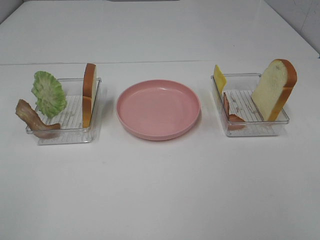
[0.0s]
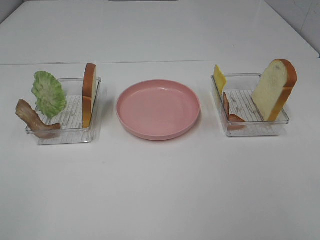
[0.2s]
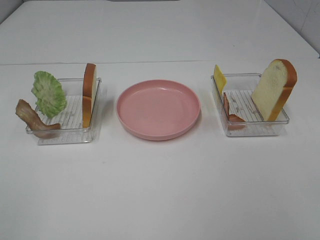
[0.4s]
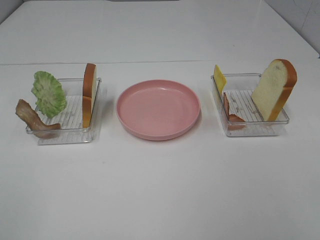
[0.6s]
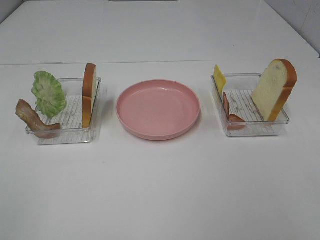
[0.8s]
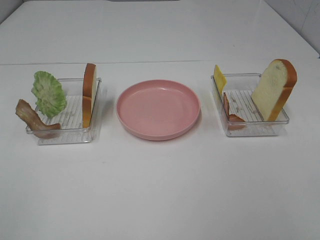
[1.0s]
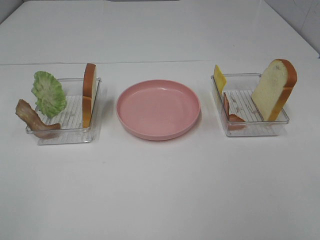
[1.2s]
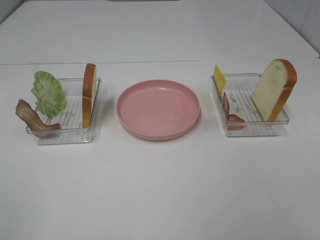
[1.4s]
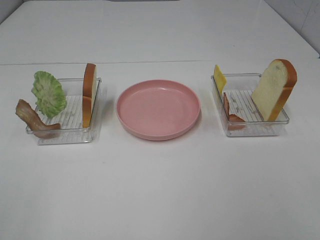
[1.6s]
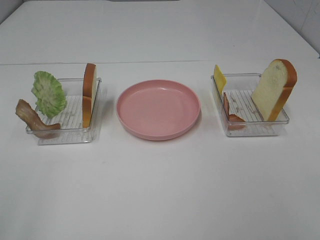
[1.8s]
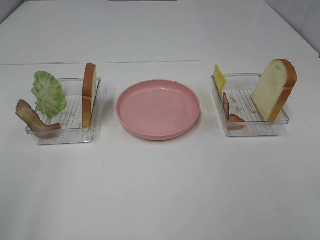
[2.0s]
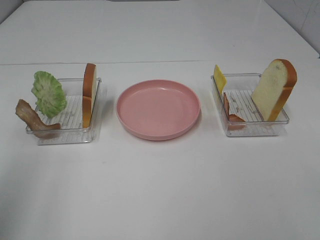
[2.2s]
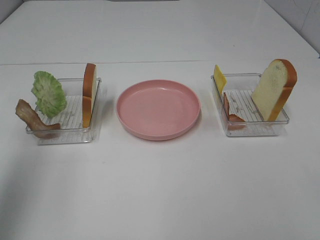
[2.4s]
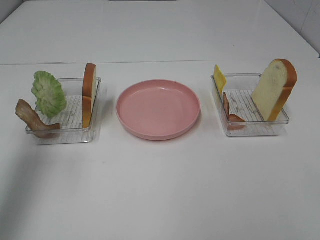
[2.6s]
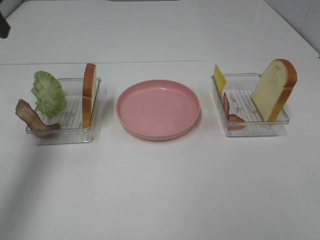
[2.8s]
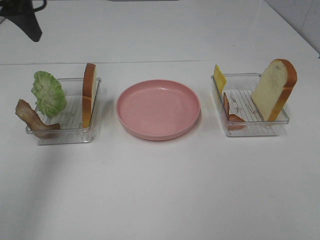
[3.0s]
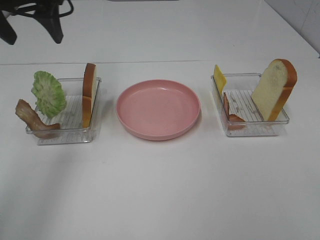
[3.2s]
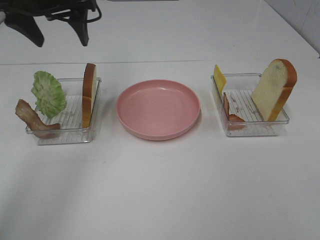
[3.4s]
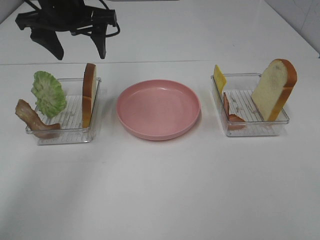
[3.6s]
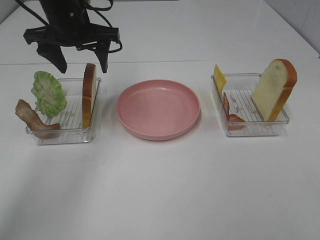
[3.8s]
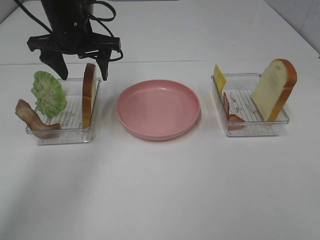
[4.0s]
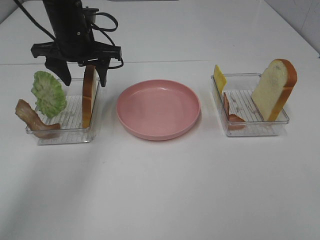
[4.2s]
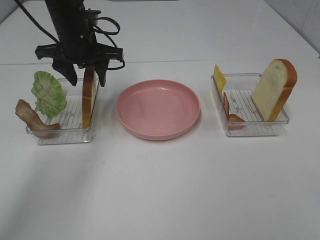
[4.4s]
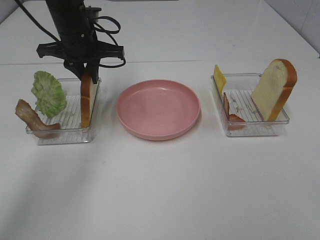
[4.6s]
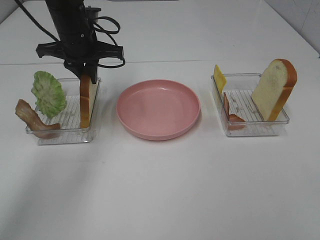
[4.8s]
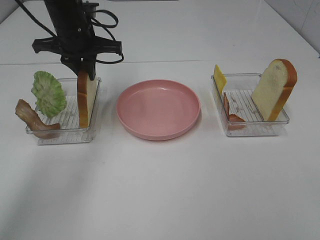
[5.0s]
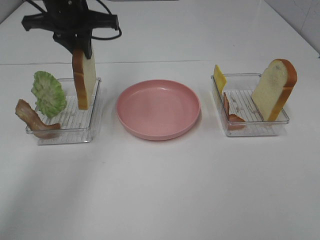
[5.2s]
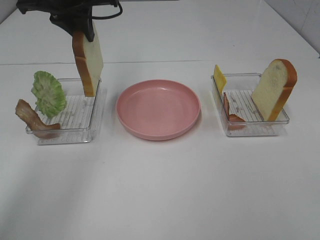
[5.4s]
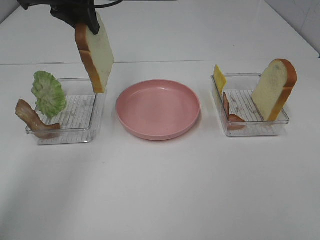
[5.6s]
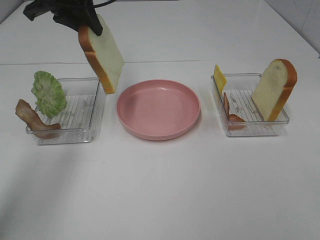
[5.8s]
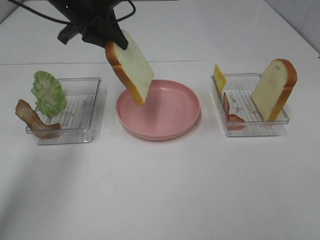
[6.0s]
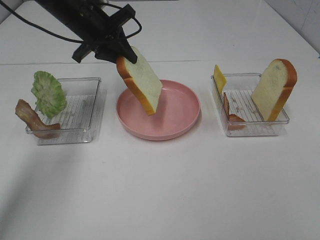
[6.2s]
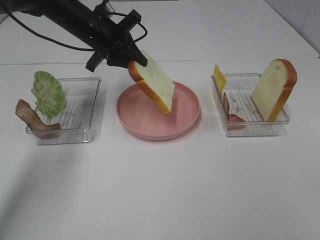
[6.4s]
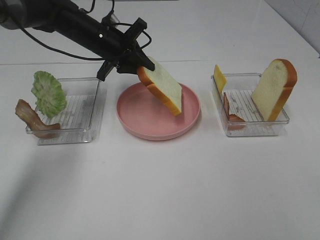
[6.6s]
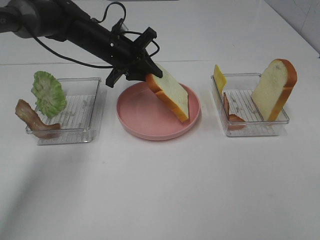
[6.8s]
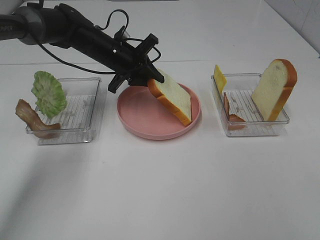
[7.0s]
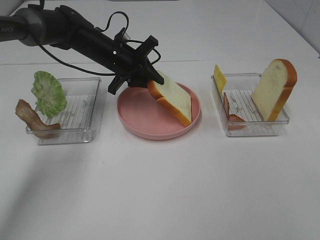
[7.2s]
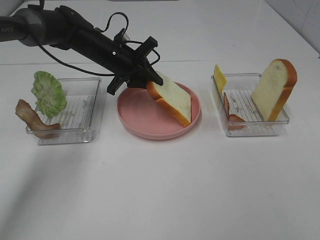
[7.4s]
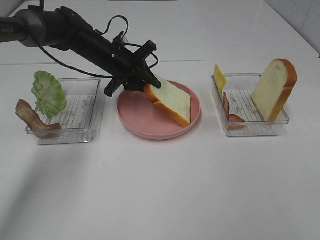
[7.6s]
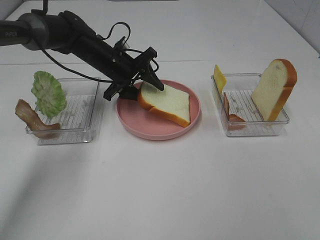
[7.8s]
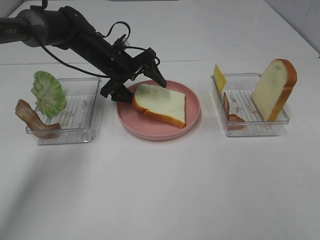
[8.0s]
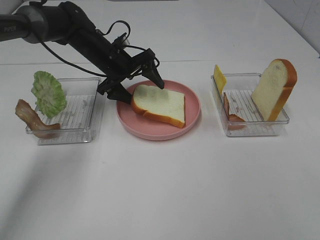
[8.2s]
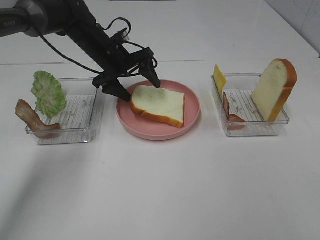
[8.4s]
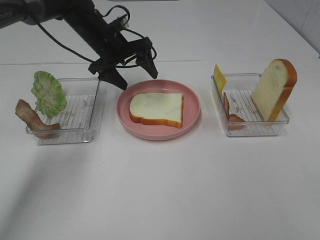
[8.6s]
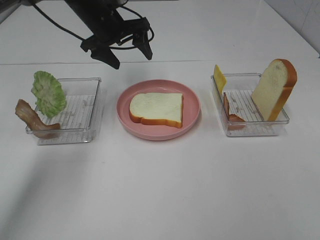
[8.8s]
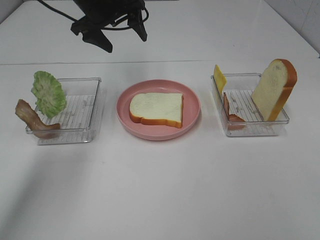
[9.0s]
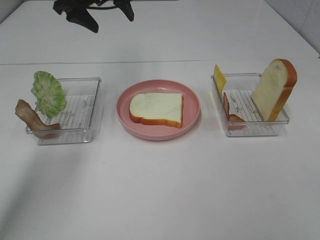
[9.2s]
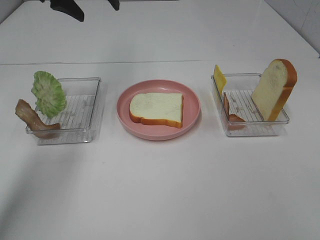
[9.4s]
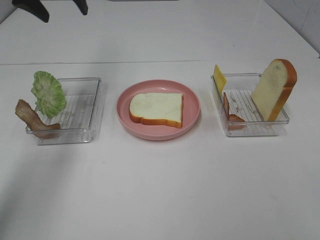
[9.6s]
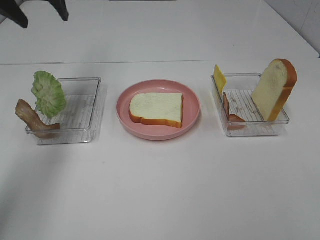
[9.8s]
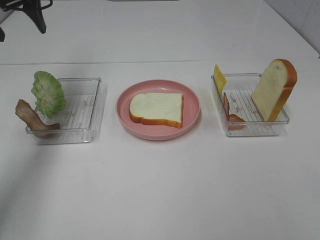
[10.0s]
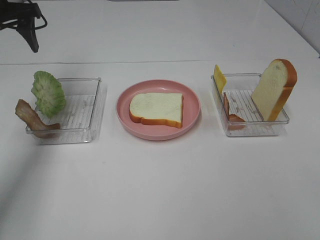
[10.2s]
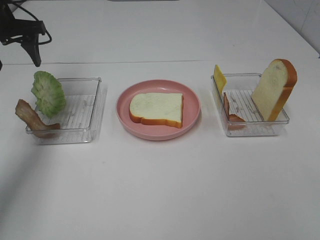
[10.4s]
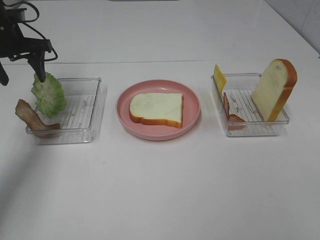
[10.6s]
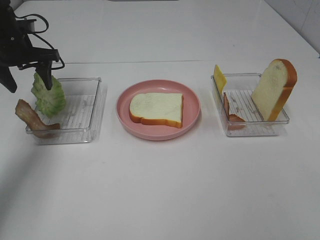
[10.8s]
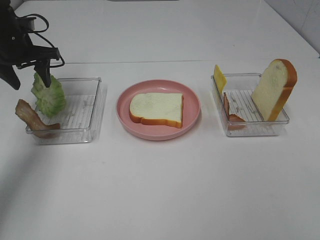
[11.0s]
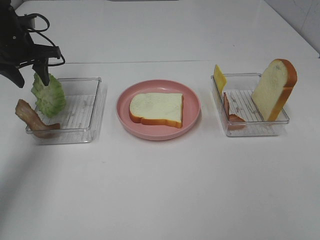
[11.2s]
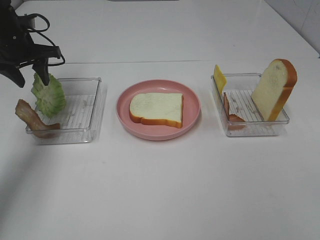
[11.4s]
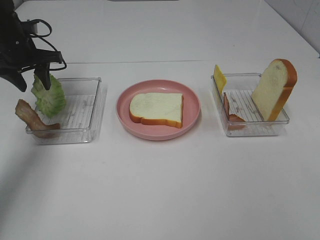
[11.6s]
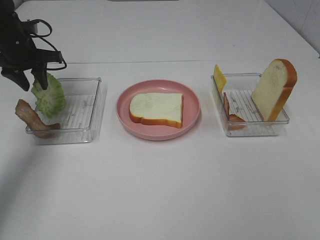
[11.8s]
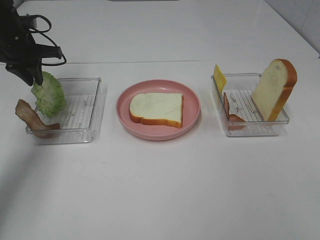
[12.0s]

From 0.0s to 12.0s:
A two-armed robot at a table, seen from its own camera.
Task of the whole recording: Make sandwiches.
Step, from 0.0s to 4.6s: Left hand:grab the bread slice.
Step, from 4.8s to 8.6s: Left hand:place the bread slice on the plate.
From 1.6s to 3.0s: The left gripper is displaced forward by some 35 cm.
From 3.0s to 4.4s: The left gripper moves downward, to the right and forward, roughly 20 cm.
From 4.4s to 6.0s: The left gripper heads upward, covering approximately 5 cm, and closes its fingers.
From 6.0s to 7.6s: The left gripper shifts about 15 cm downward.
From 7.6s to 9.0s: The left gripper travels upward by some 15 cm, and opens up.
From 9.0s to 10.4s: The left gripper heads to the left, covering approximately 15 cm.
From 10.4s to 12.0s: The left gripper moves downward, roughly 5 cm, and closes its fingers.

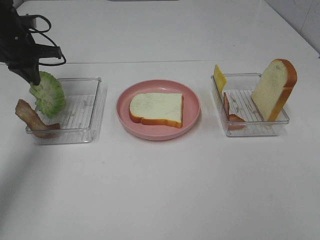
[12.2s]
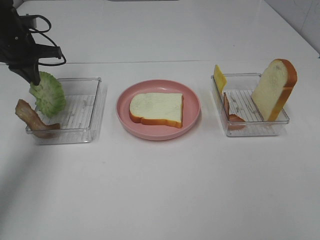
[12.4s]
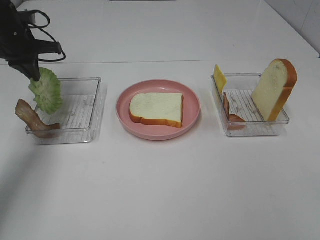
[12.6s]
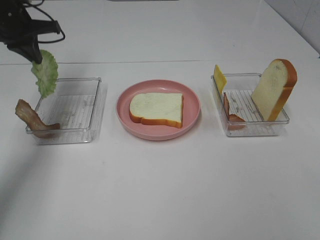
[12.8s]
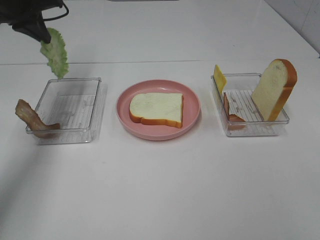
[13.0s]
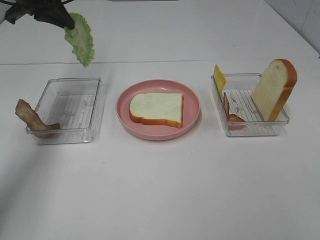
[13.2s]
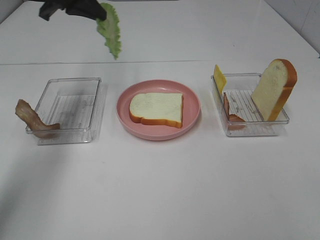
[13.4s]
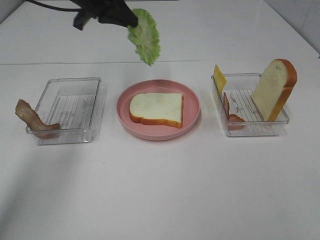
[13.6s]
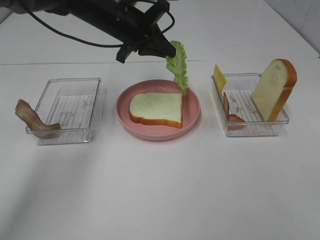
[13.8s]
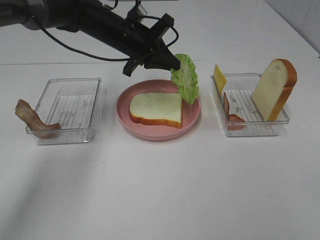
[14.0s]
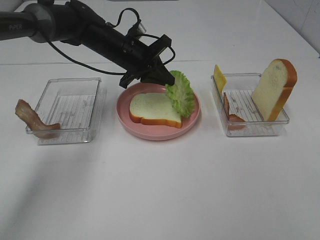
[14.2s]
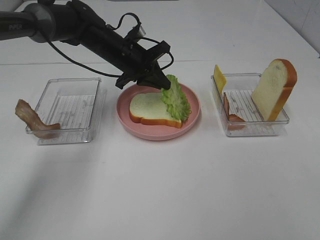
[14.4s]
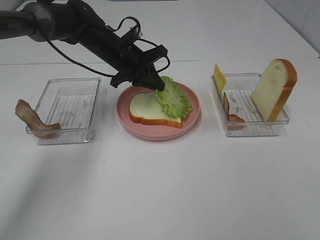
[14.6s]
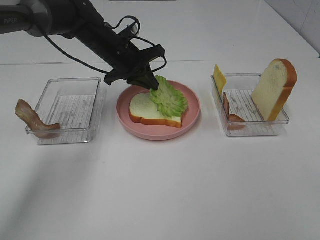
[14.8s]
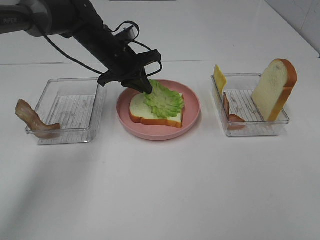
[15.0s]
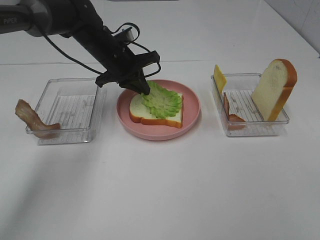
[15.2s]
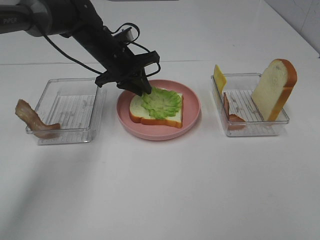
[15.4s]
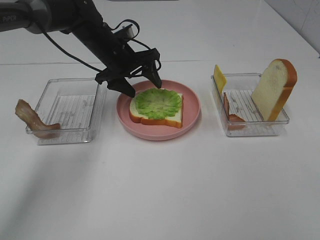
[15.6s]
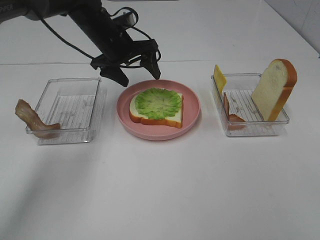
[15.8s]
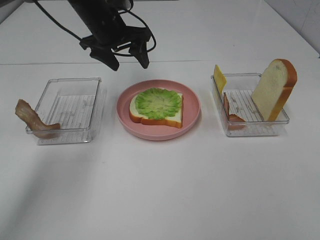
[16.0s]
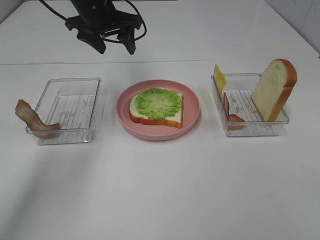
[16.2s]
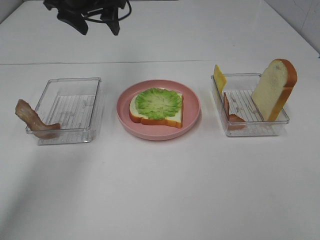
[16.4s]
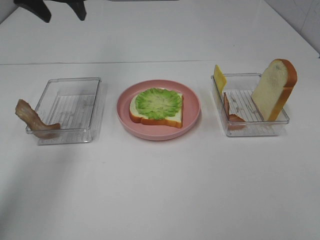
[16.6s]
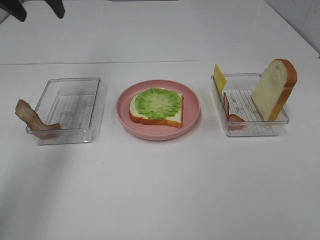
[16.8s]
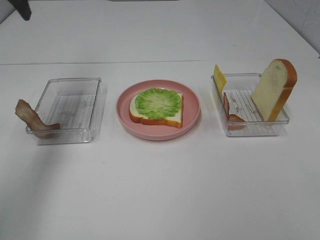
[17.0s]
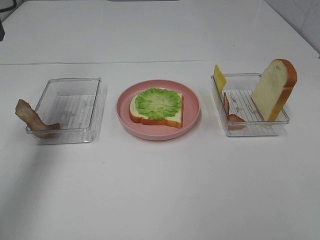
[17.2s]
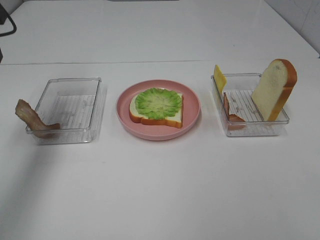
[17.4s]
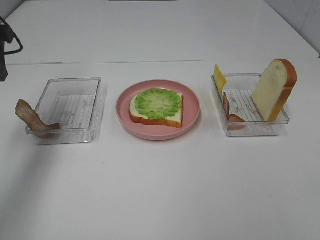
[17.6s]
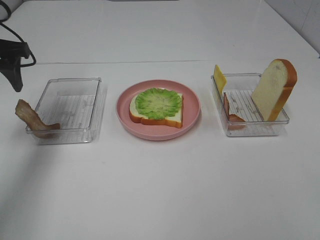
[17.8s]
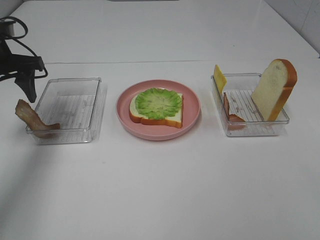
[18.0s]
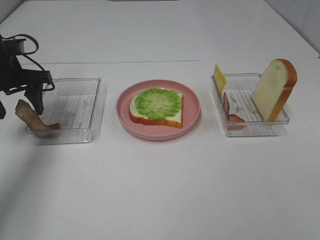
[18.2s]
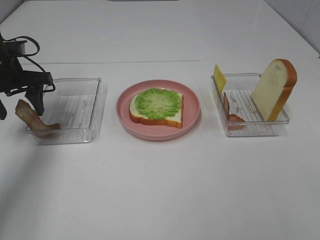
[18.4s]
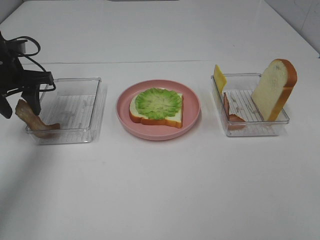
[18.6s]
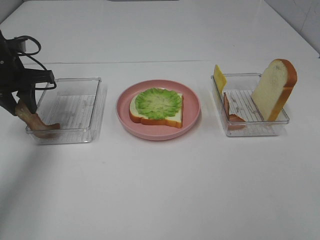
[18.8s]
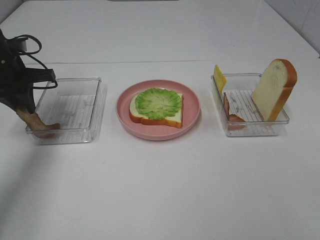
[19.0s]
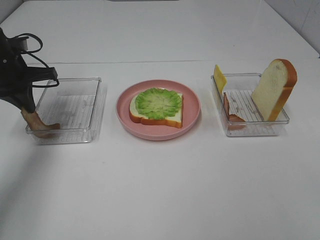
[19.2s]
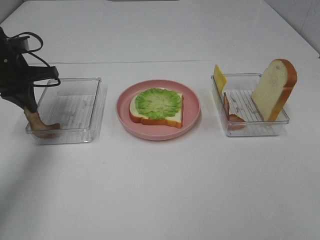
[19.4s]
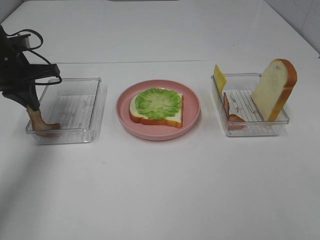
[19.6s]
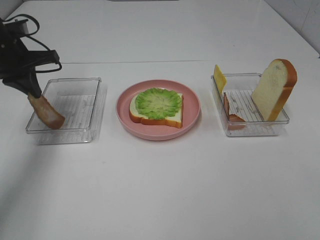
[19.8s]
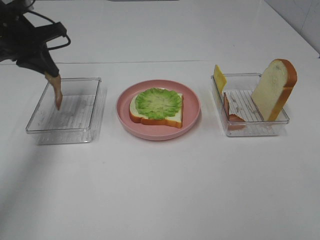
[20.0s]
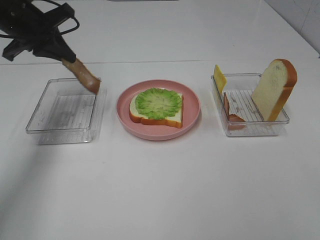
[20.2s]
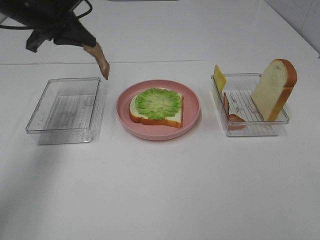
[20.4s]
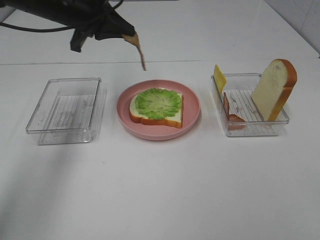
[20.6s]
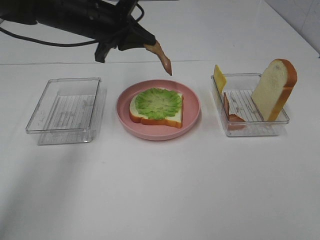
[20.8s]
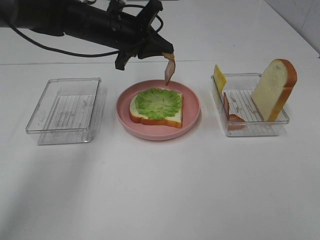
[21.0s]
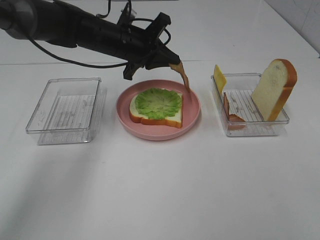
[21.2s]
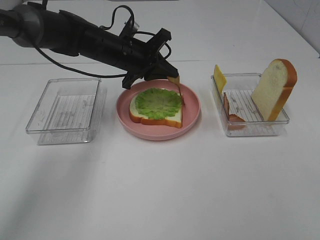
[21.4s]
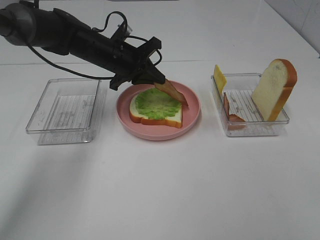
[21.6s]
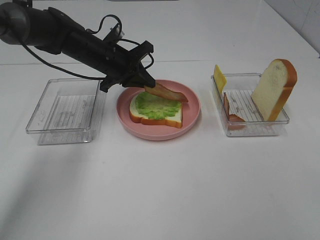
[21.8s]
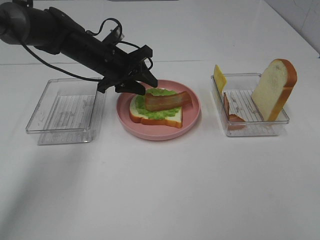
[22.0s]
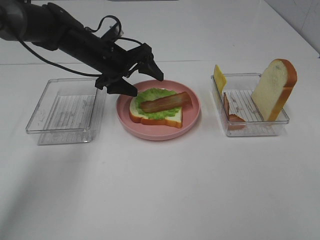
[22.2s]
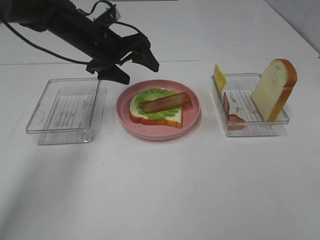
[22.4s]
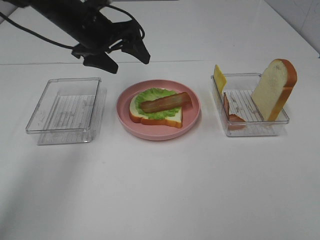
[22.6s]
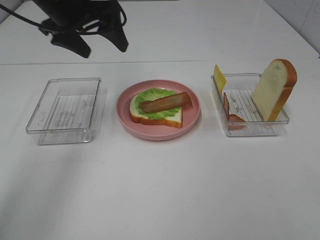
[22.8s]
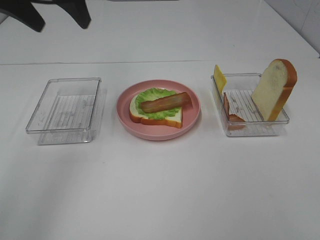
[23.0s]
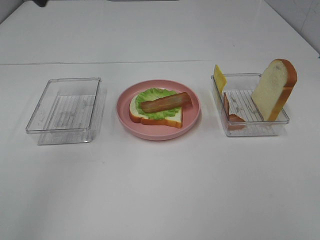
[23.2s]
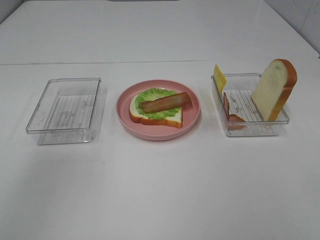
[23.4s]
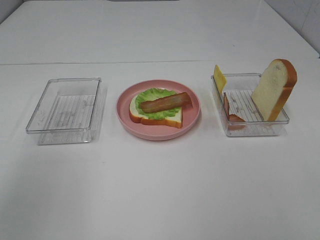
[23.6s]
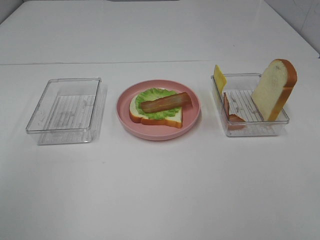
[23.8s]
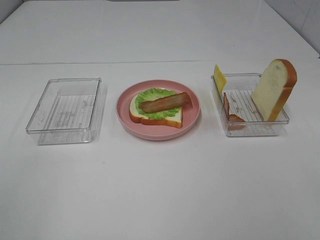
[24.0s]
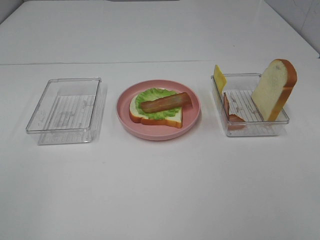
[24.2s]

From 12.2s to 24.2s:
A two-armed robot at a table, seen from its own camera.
Task of the whole recording: Make sandwiches.
Step, from 12.4s to 15.8s: Left hand:place the lettuce slice on the bread slice.
Step, from 16.0s to 19.6s: Left hand:grab the bacon.
Step, from 19.8s to 22.2s: Left hand:place bacon on lettuce slice.
From 12.2s to 13.8s: The left gripper shifts some 20 cm to the right.
From 13.8s to 15.2s: The left gripper heads downward, covering roughly 5 cm.
From 15.2s to 16.6s: The left gripper heads upward and to the left, covering roughly 20 cm, and opens.
From 16.6s to 18.2s: The left gripper goes roughly 15 cm downward and to the left.
From 18.2s to 19.8s: The left gripper closes up.
From 19.8s to 21.2s: The left gripper travels to the right by some 20 cm.
From 21.2s to 22.6s: The left gripper moves upward and to the left, about 10 cm, and opens up.
From 22.6s to 24.2s: The left gripper is displaced backward and to the left by roughly 50 cm.
